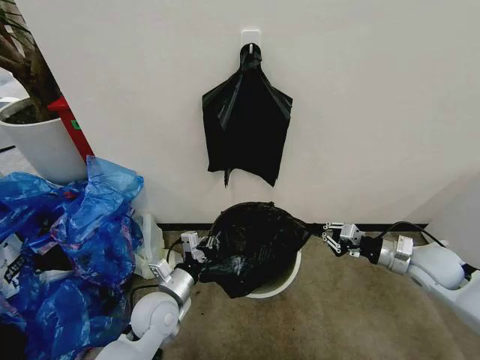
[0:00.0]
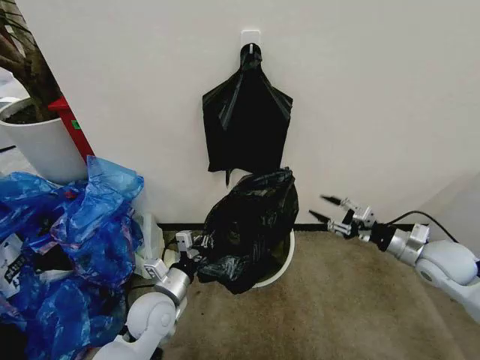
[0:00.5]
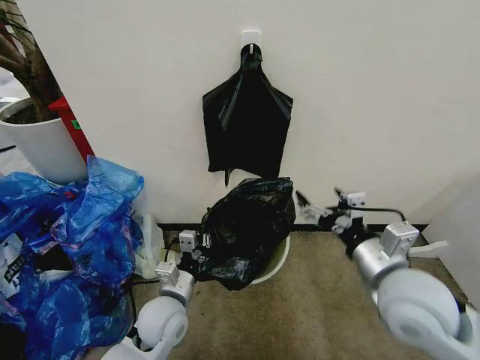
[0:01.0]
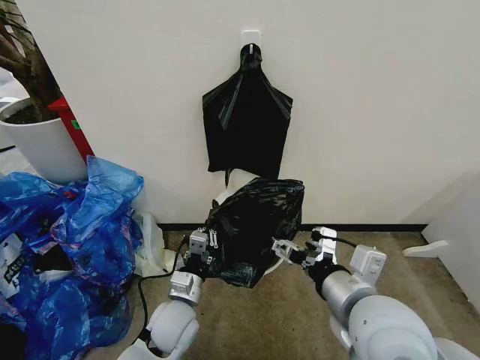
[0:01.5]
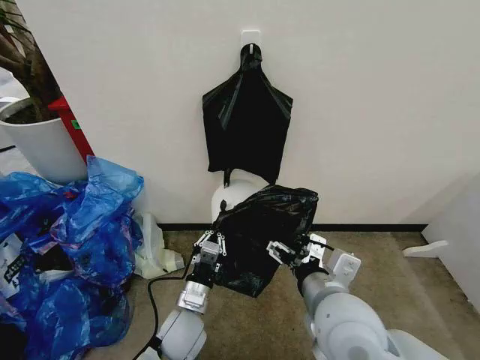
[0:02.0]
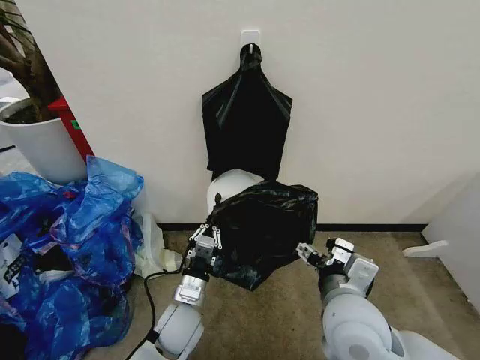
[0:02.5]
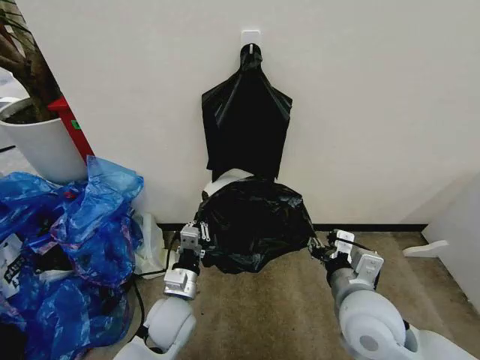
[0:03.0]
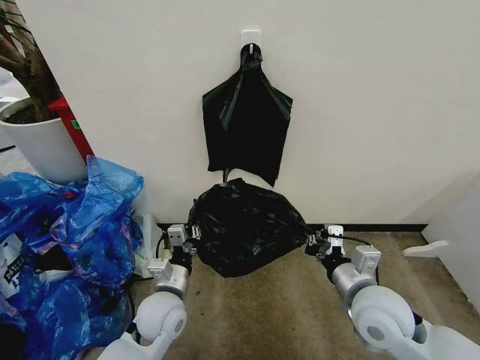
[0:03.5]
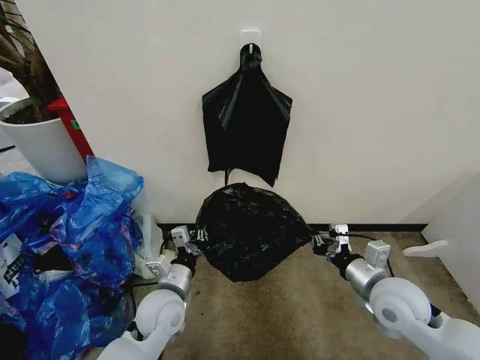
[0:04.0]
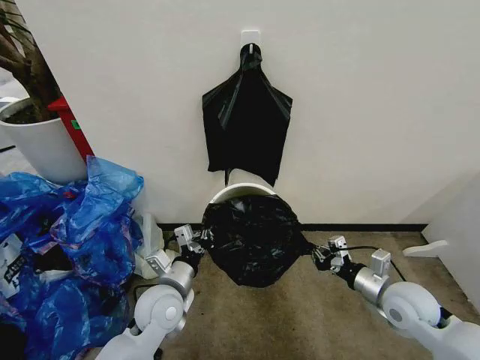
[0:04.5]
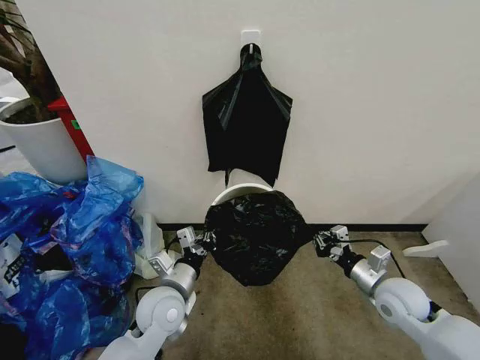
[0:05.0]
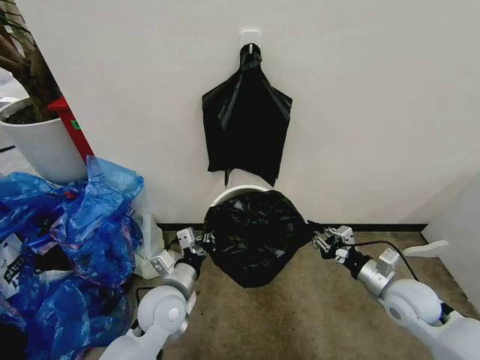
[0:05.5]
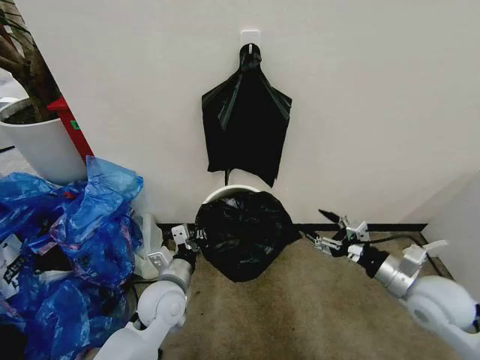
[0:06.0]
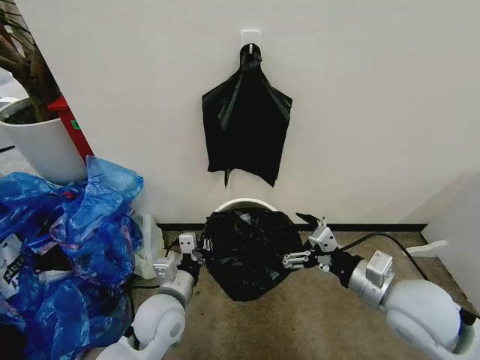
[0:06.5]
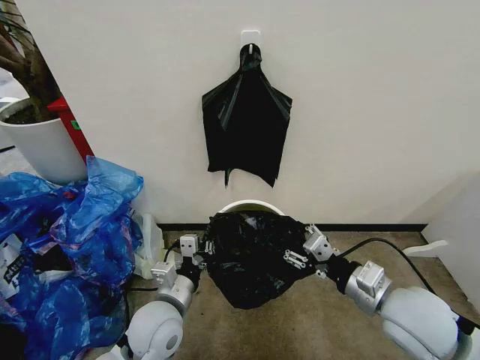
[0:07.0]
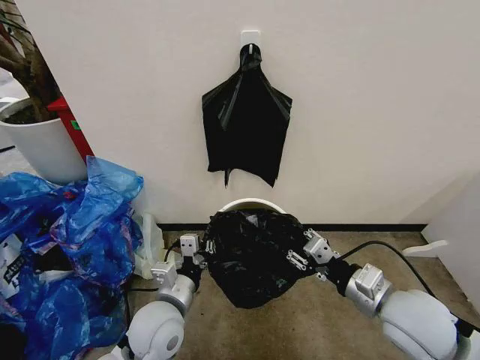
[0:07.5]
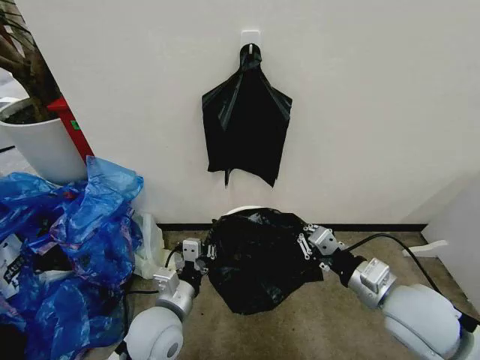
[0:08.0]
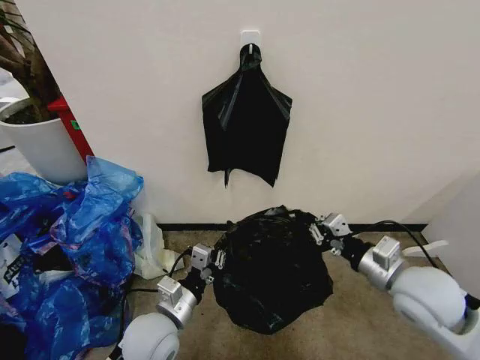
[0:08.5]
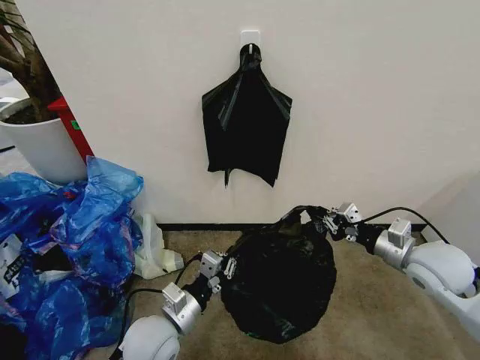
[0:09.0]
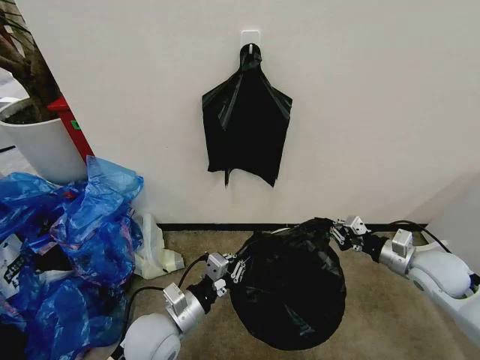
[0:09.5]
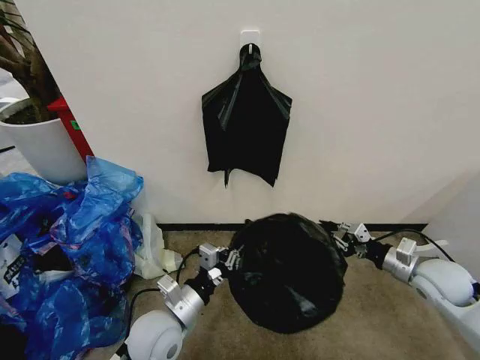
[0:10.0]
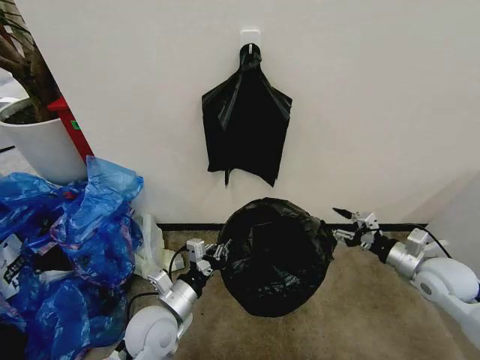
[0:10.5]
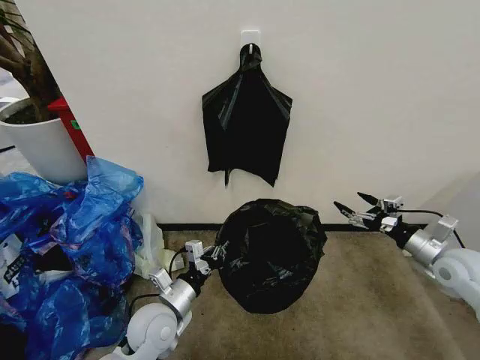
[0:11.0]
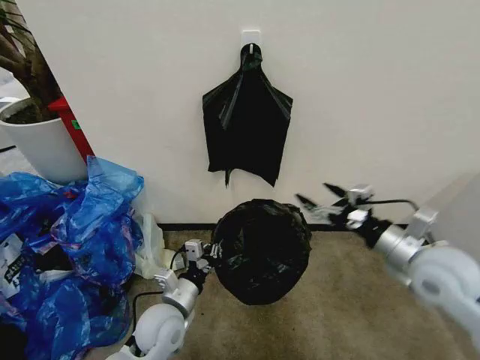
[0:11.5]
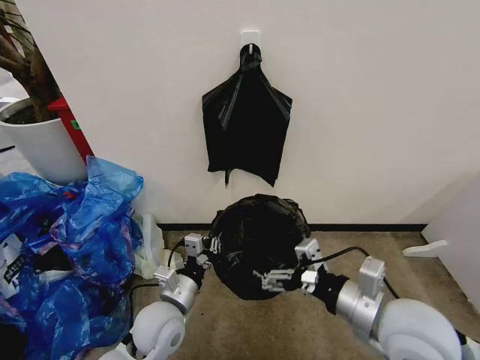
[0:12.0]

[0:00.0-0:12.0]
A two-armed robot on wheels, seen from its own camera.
Task of the whole recording: Place the garbage bag over the trash bin.
0:00.0 to 0:02.0: The right gripper shifts about 30 cm to the left and backward, and opens its fingers. The left gripper moves to the right, approximately 5 cm.
0:02.0 to 0:04.0: The right gripper shifts roughly 20 cm to the right, downward and forward, and closes, while the left gripper changes place by roughly 5 cm.
0:04.0 to 0:06.0: The right gripper is displaced to the right by about 5 cm, goes downward and returns, some 5 cm each way, and opens its fingers.
0:06.0 to 0:08.0: The left gripper goes approximately 5 cm backward; the right gripper travels to the left by approximately 10 cm, and closes.
0:08.0 to 0:10.0: The right gripper heads to the right, forward and downward, covering roughly 20 cm.
0:10.0 to 0:12.0: The right gripper moves to the left, backward and upward, approximately 25 cm, and opens up.

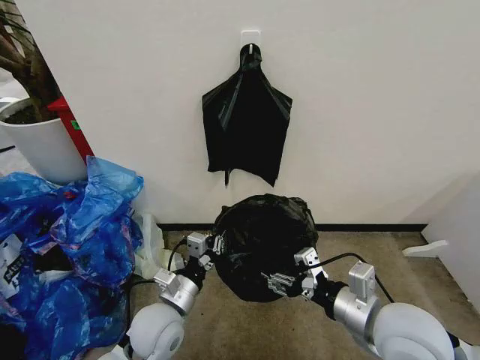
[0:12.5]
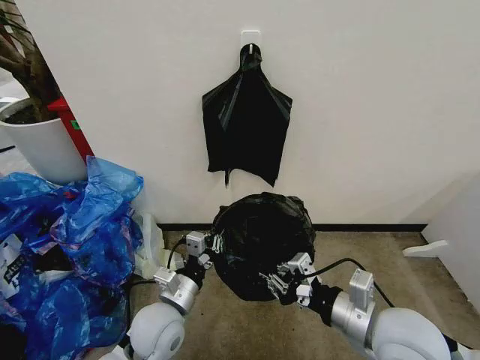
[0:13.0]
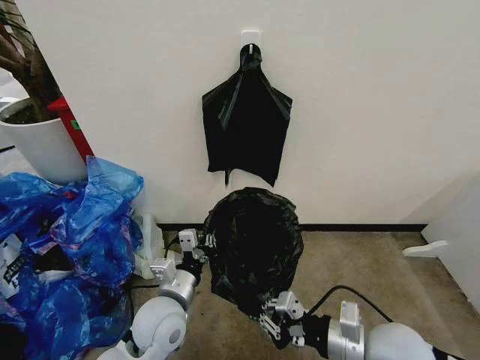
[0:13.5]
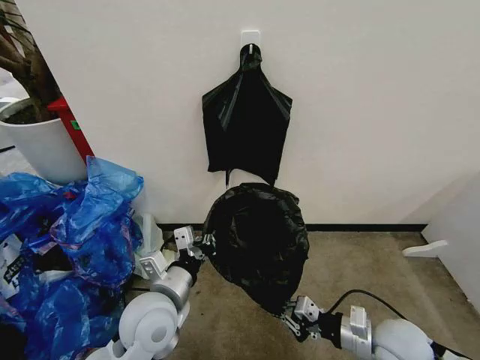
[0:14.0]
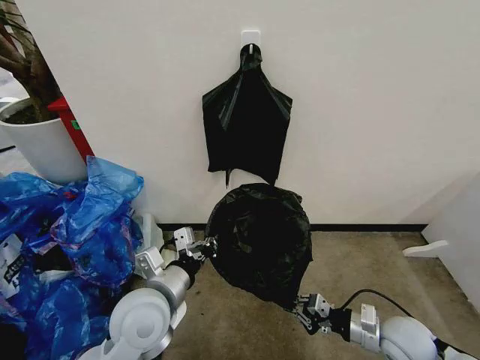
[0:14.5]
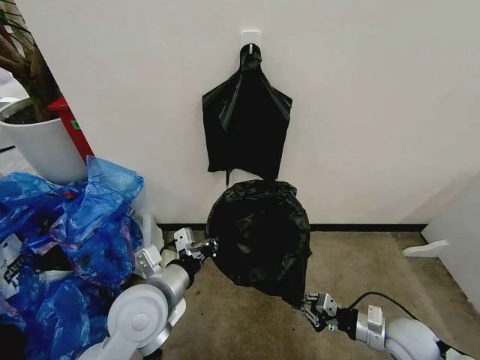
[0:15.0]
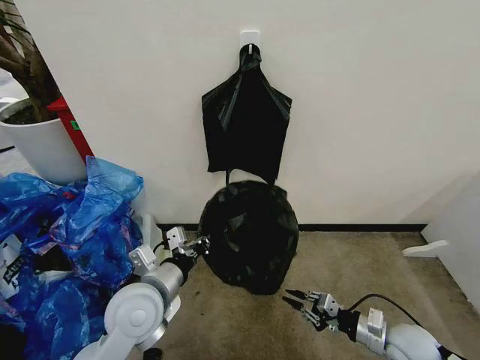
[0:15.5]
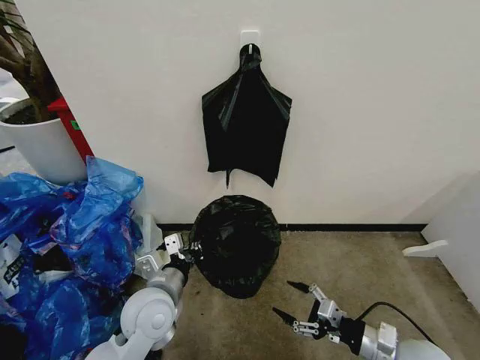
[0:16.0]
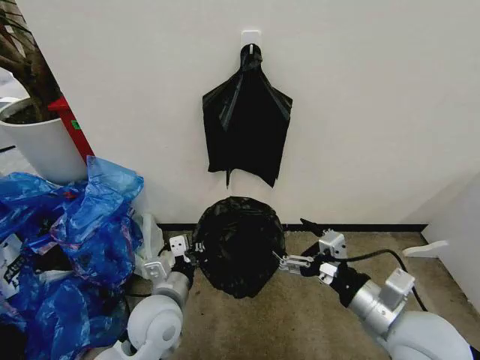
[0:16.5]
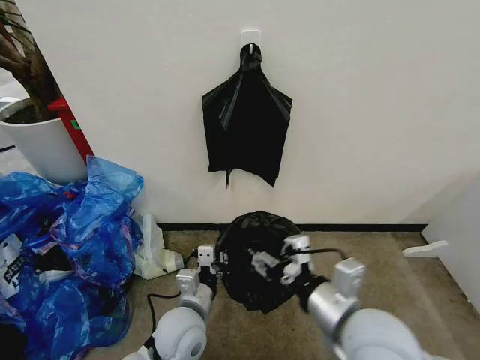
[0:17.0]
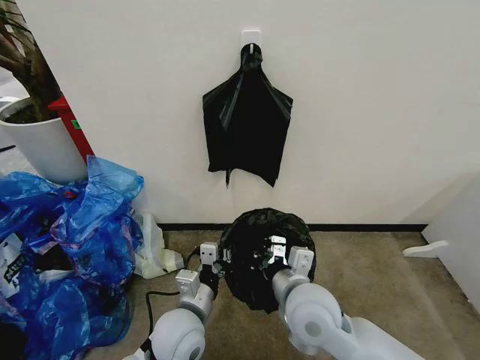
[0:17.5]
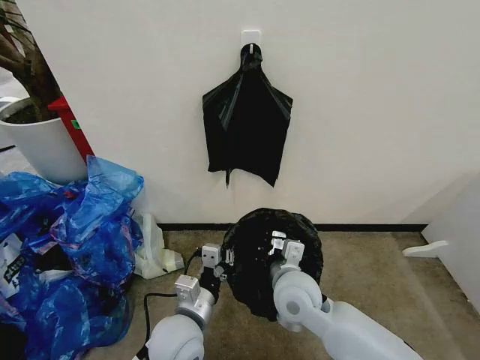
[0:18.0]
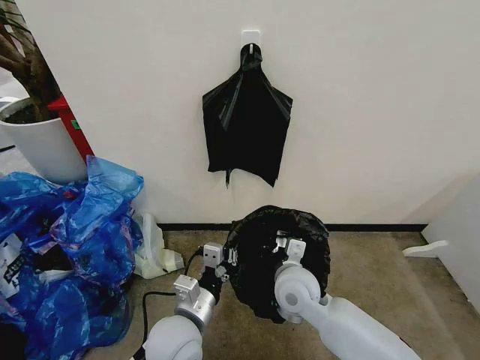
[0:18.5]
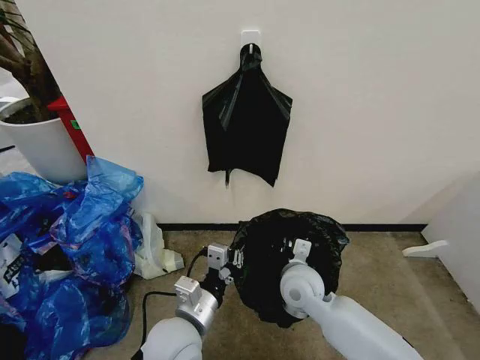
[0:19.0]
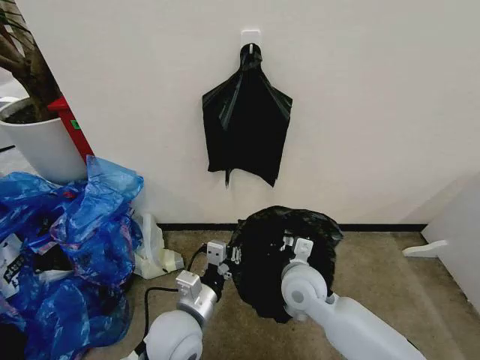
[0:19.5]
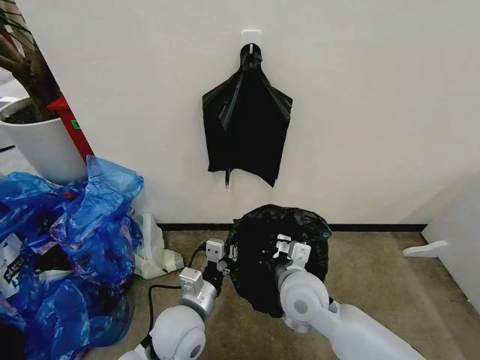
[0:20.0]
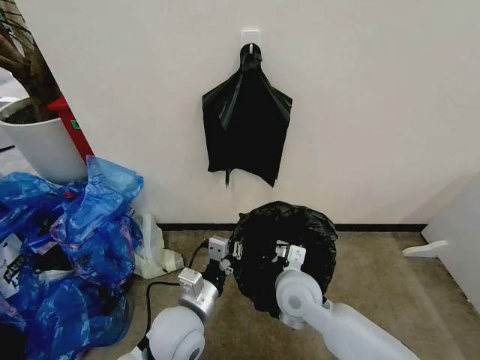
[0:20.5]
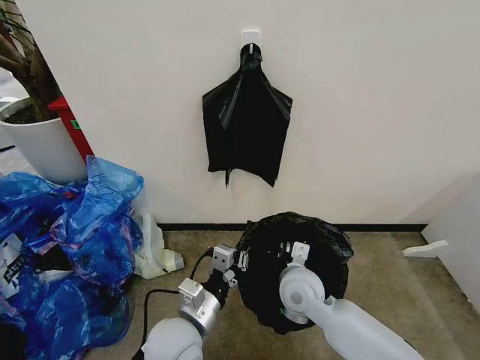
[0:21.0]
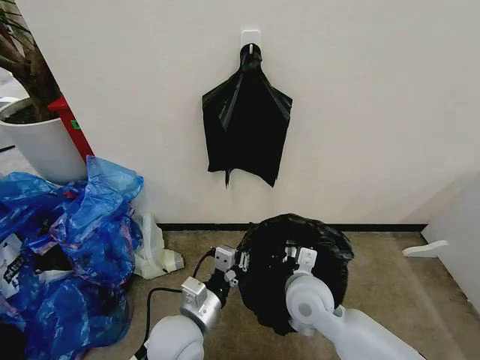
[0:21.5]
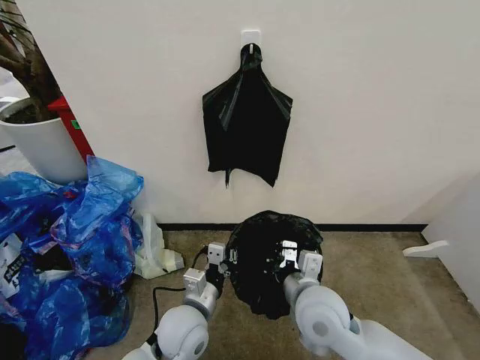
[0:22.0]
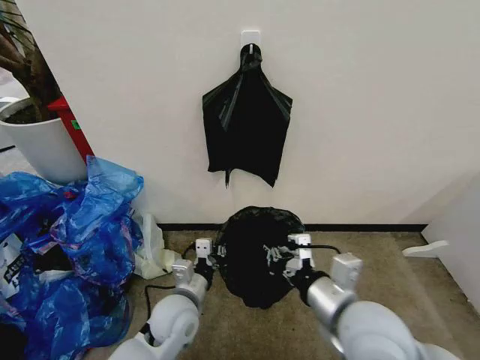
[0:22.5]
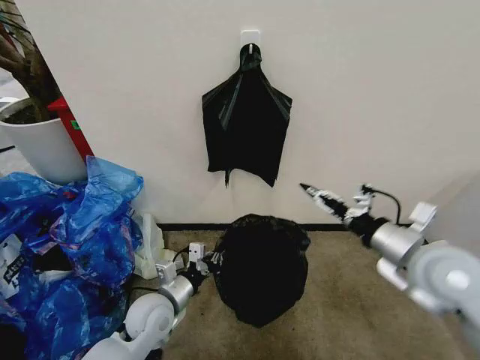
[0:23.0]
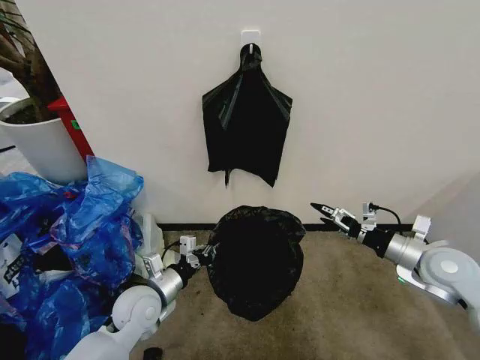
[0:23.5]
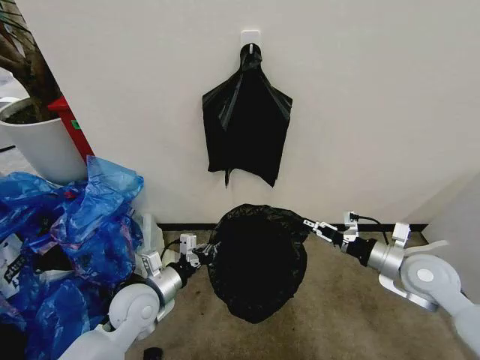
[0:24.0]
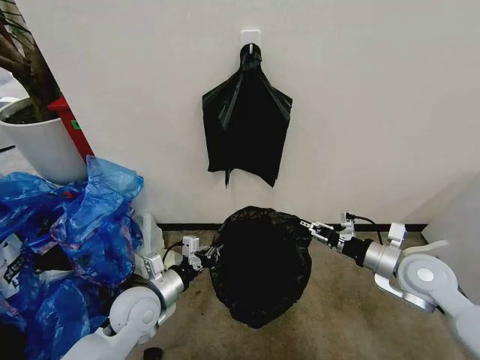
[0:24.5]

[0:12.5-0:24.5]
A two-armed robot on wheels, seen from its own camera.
Task of the whole recording: Place the garbage bag over the trash bin.
0:12.5 to 0:14.5: The left gripper moves upward, roughly 10 cm, while the right gripper travels downward and to the right by approximately 20 cm, and closes its fingers.
0:14.5 to 0:16.5: The left gripper shifts approximately 5 cm downward, while the right gripper is displaced upward and to the left by some 20 cm, and opens.
0:16.5 to 0:18.5: The right gripper travels to the left, forward and downward by approximately 20 cm, and closes. The left gripper moves about 5 cm.
0:18.5 to 0:20.5: The grippers move only a little.
0:20.5 to 0:22.5: The left gripper moves roughly 5 cm, while the right gripper shifts some 20 cm upward, backward and to the right.
0:22.5 to 0:24.5: The right gripper goes about 20 cm to the right and forward, and opens, then closes once more, while the left gripper moves to the left, approximately 5 cm.

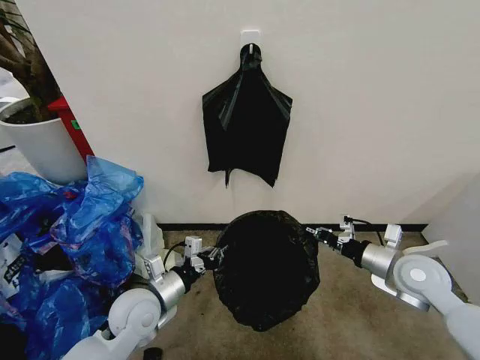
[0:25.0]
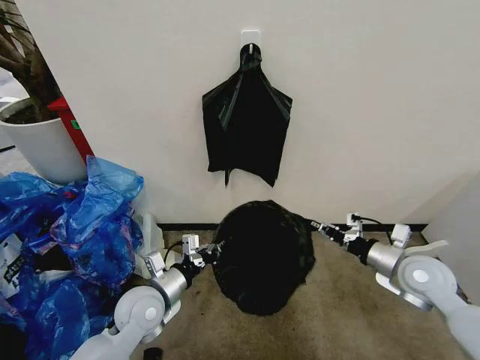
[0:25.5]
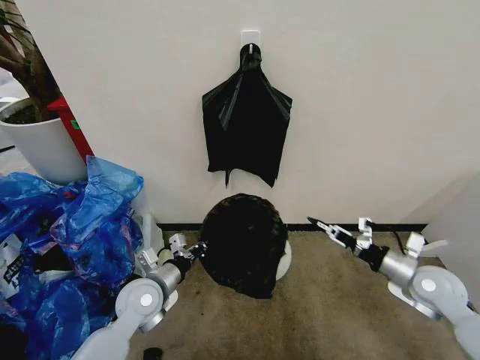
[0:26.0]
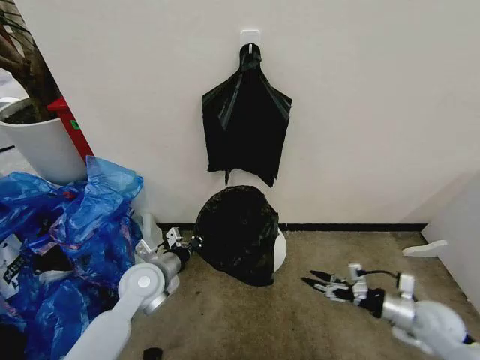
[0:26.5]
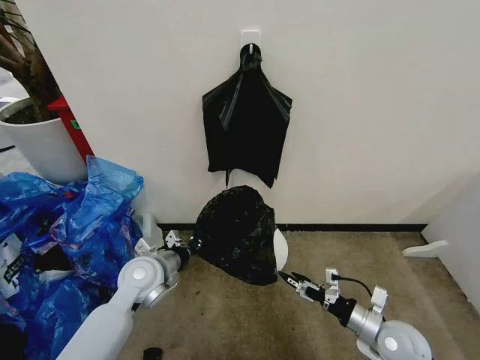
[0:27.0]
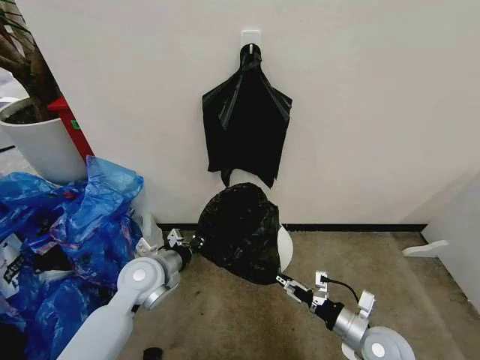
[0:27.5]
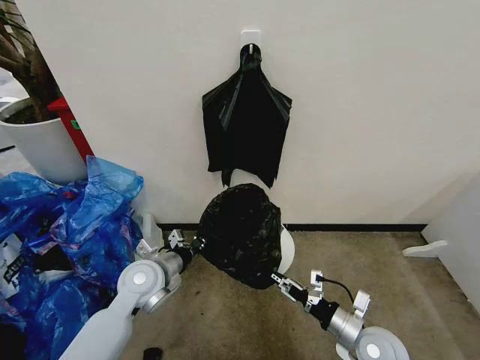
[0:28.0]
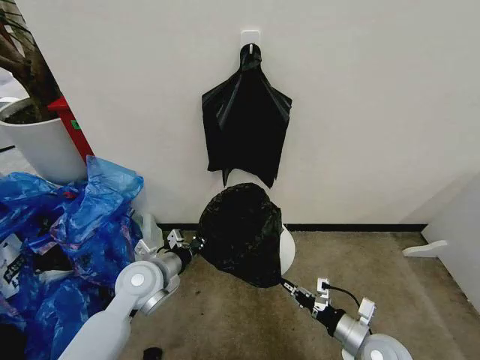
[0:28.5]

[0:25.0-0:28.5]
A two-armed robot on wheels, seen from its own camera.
Task of the whole recording: Place the garbage bag over the trash bin.
0:25.0 to 0:27.0: The left gripper moves forward, roughly 5 cm. Meanwhile the right gripper travels downward and backward by roughly 15 cm, and opens up.
0:27.0 to 0:28.5: The right gripper closes its fingers.
